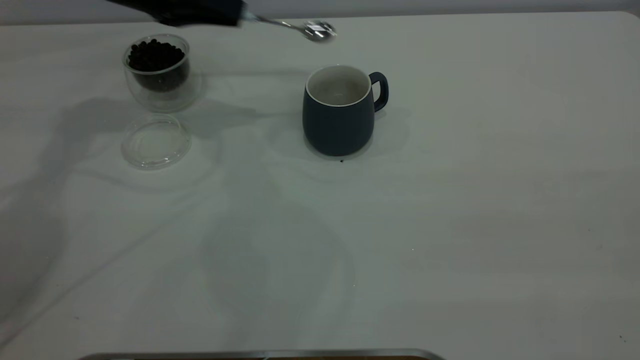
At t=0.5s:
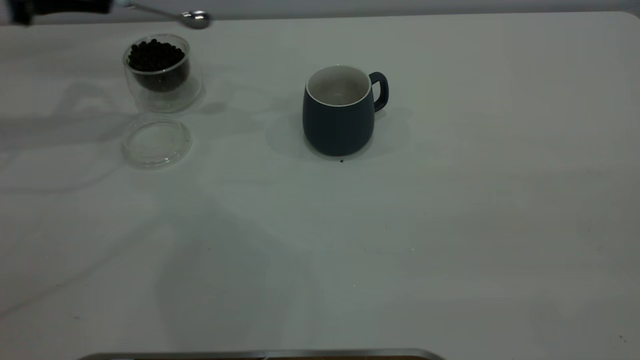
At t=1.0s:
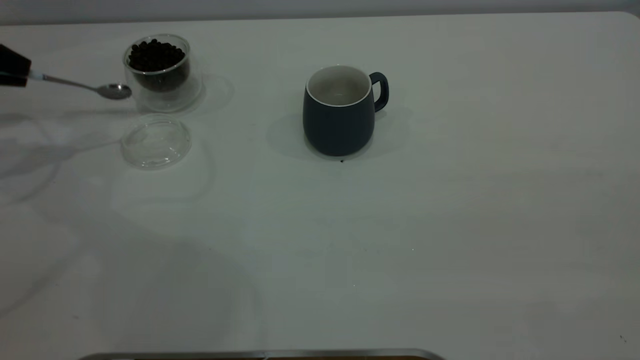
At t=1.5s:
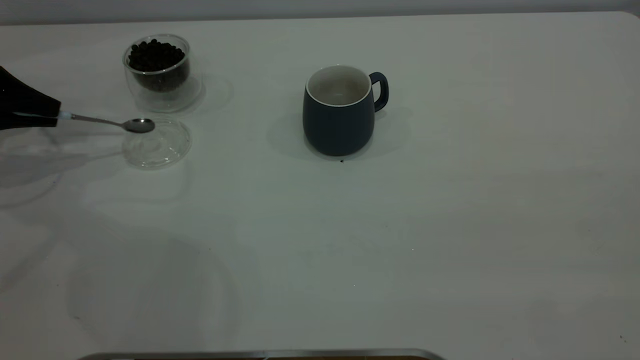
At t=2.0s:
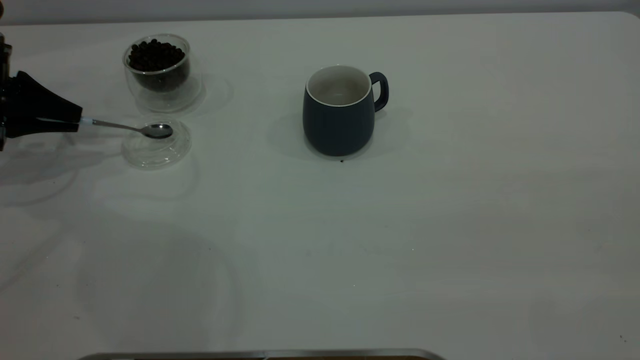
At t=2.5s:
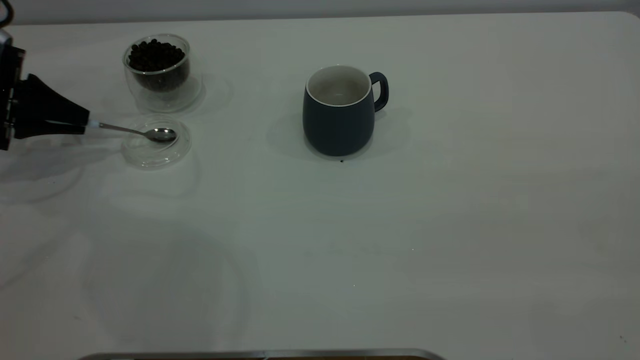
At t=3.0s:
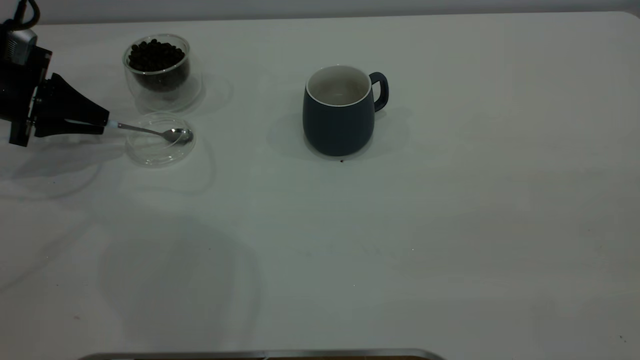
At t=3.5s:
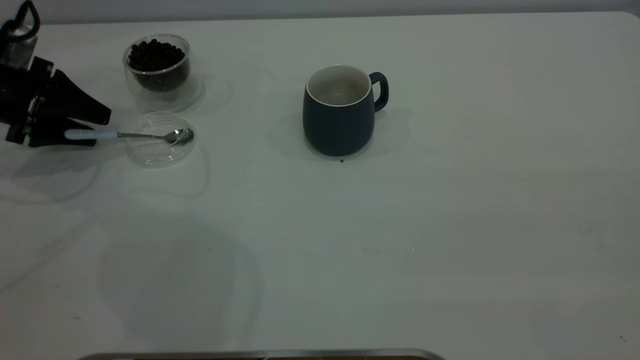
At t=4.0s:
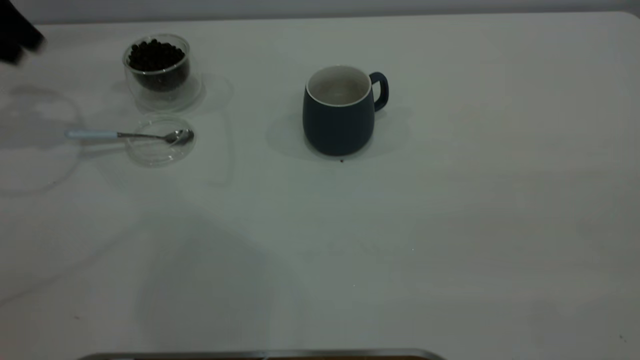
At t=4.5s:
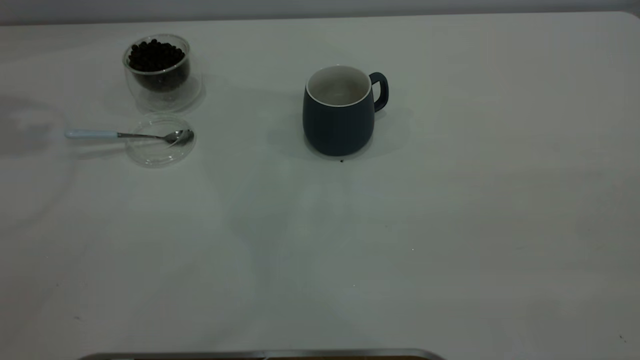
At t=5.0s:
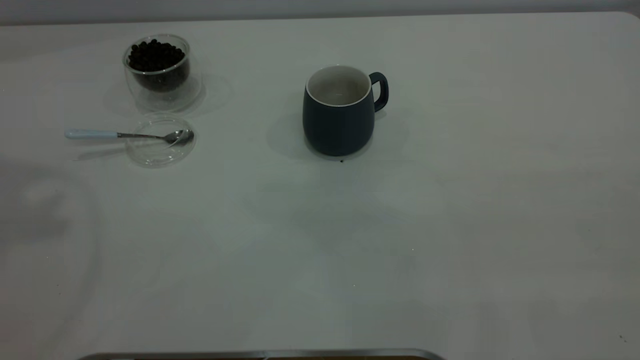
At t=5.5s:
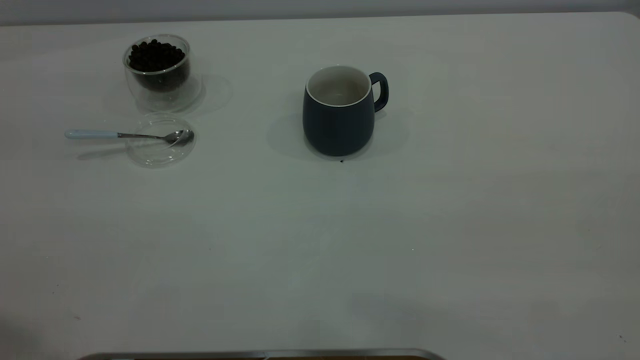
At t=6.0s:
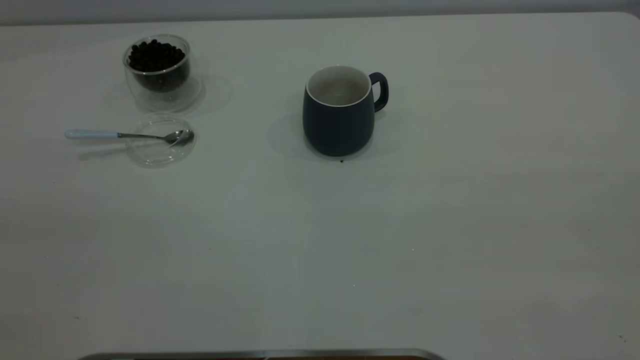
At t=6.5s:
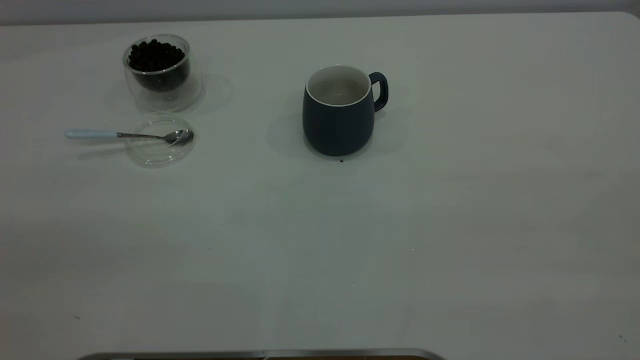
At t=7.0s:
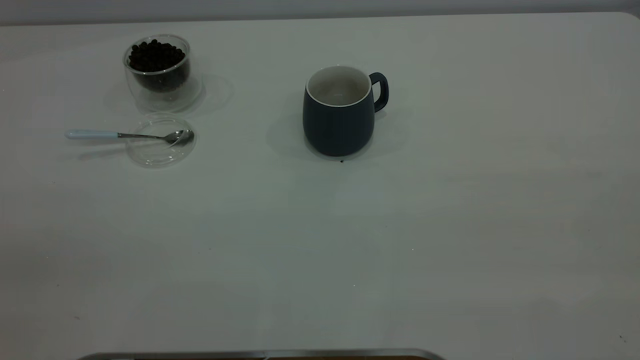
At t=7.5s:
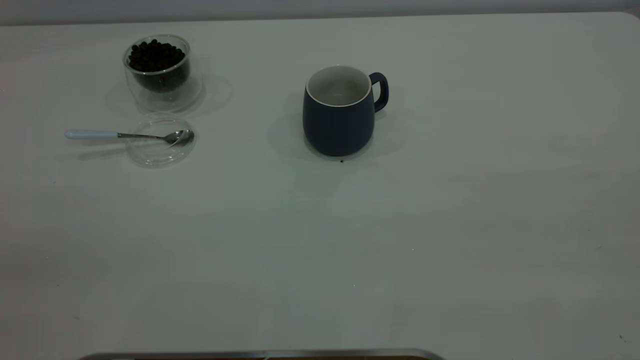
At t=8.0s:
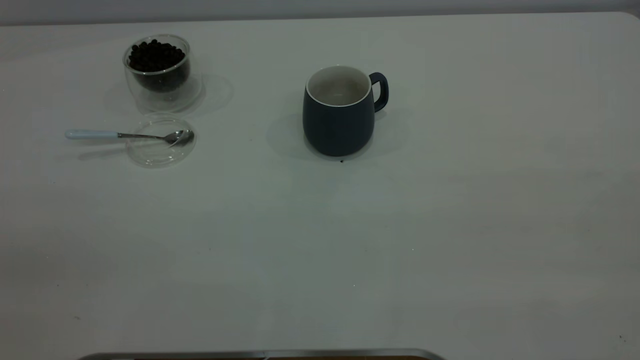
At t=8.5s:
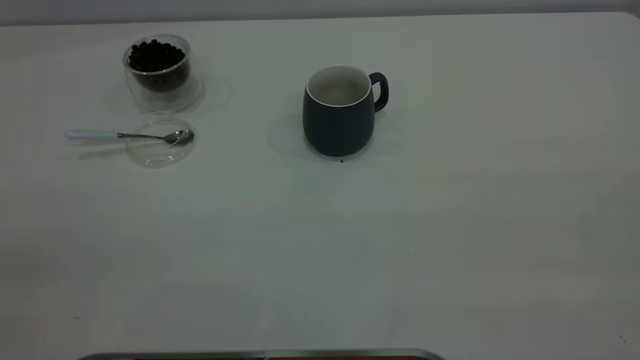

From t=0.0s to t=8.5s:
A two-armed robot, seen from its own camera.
Task of the whole recording: the right gripper place the grey cup in the center of the table, the left gripper take the blue spoon from the cup lid and scoop out the coffee beans from the coffee cup and put them into the grey cup, the left gripper put the spoon back into the cup lid.
Step, from t=0.0s to t=3.5s: Place the spoon back in its original place.
From t=0.0s to t=2.0s: The left gripper is displaced to the left, downward and backward by roughly 20 cm.
From t=2.0s to t=4.0s: The left gripper shifts approximately 15 cm upward, and opens its fingers.
From t=4.0s to t=6.5s: The left gripper goes about 40 cm backward.
